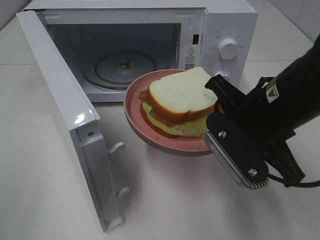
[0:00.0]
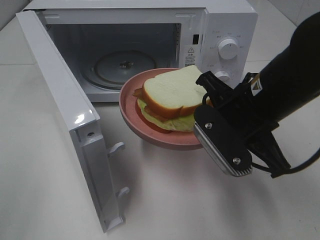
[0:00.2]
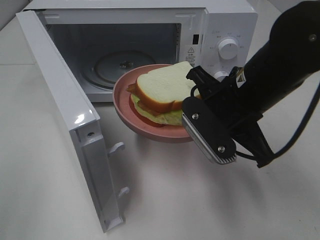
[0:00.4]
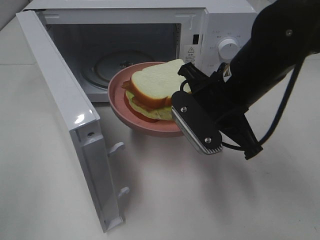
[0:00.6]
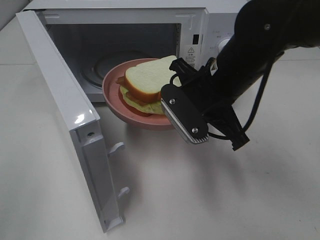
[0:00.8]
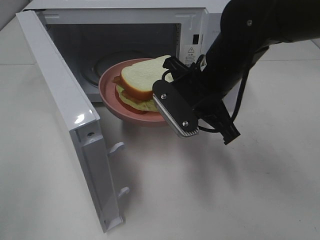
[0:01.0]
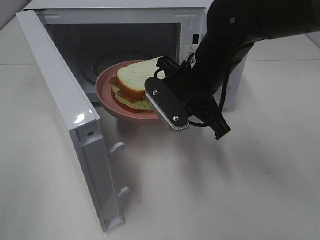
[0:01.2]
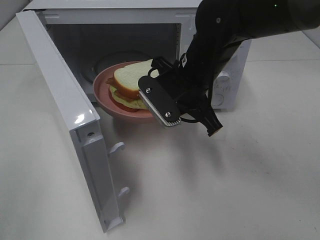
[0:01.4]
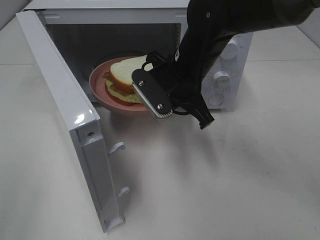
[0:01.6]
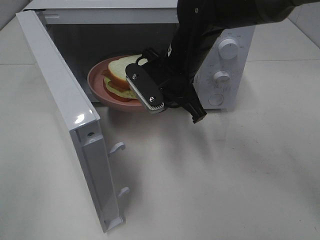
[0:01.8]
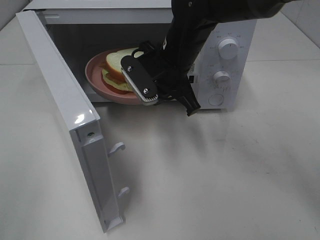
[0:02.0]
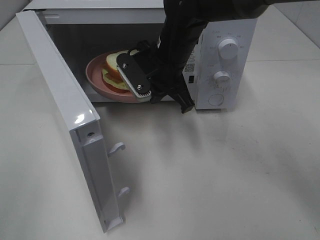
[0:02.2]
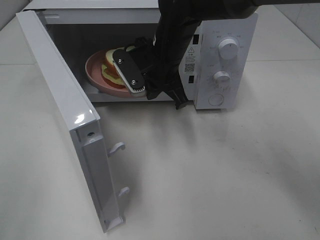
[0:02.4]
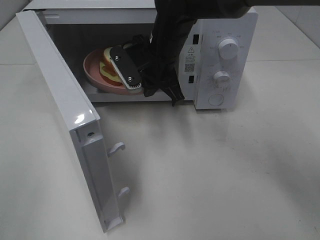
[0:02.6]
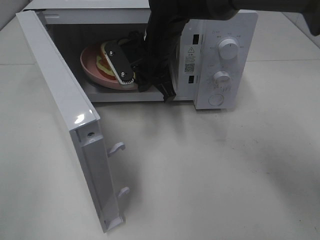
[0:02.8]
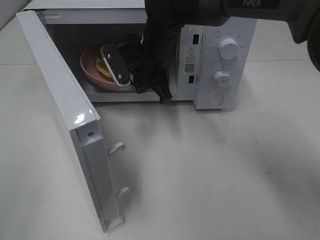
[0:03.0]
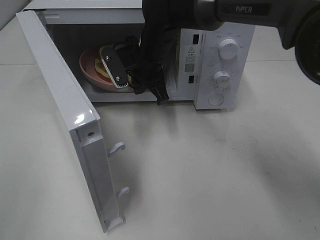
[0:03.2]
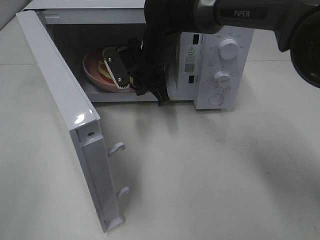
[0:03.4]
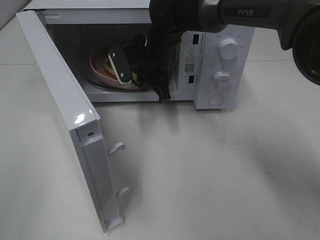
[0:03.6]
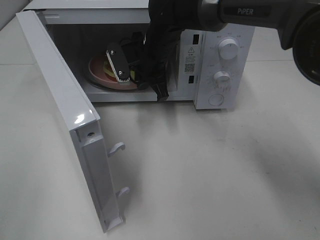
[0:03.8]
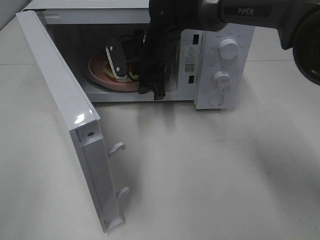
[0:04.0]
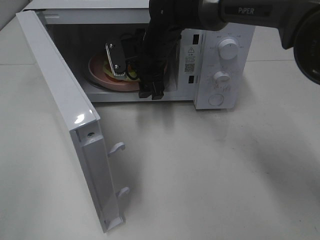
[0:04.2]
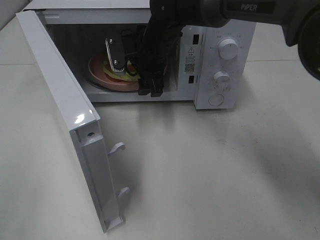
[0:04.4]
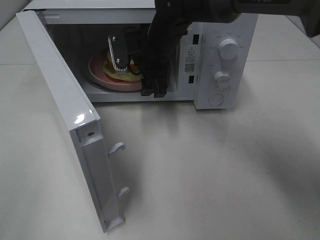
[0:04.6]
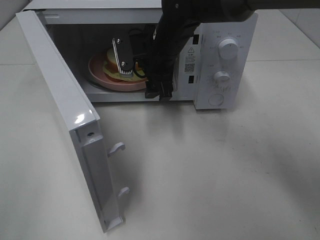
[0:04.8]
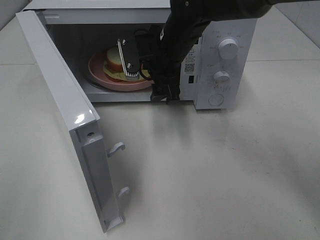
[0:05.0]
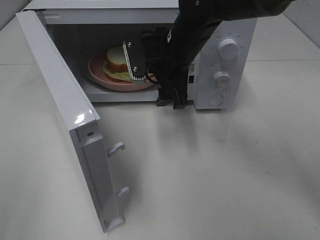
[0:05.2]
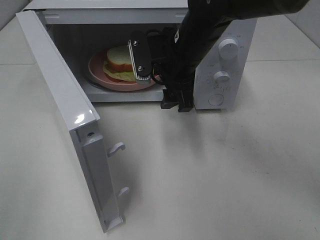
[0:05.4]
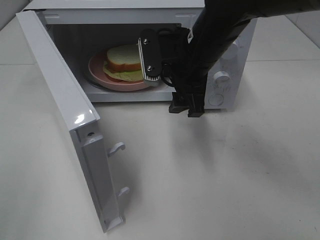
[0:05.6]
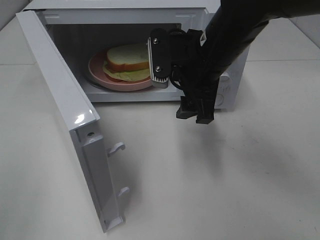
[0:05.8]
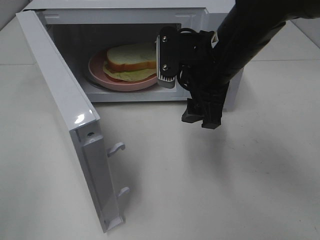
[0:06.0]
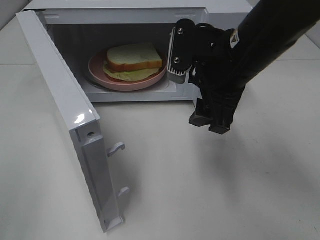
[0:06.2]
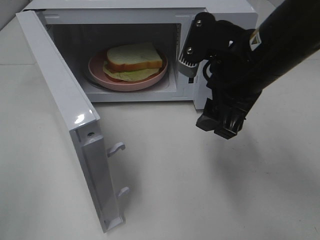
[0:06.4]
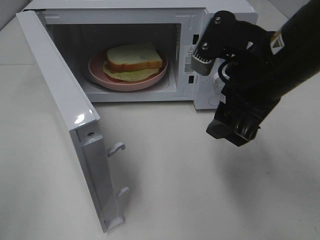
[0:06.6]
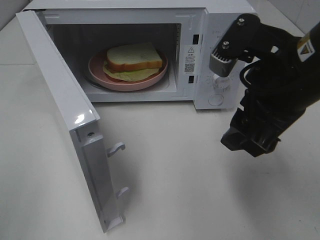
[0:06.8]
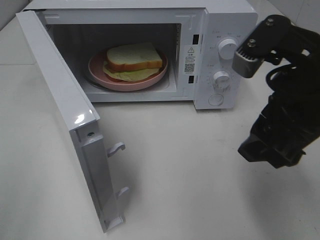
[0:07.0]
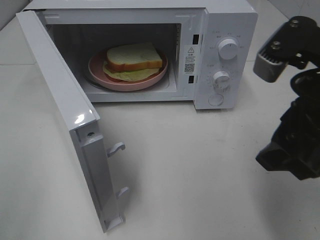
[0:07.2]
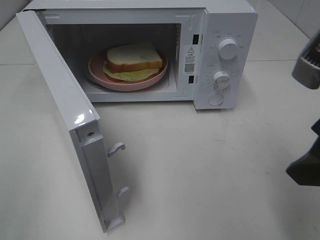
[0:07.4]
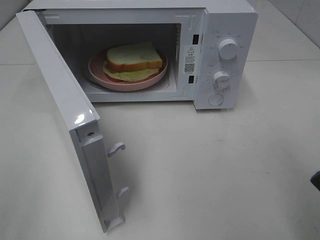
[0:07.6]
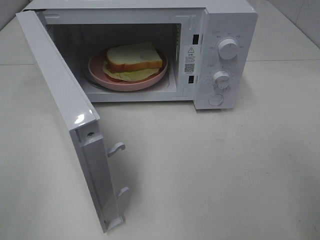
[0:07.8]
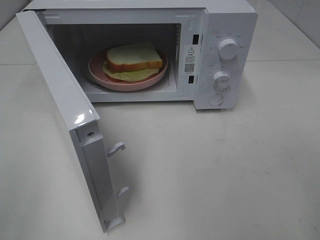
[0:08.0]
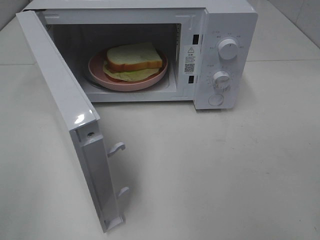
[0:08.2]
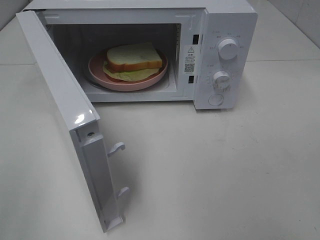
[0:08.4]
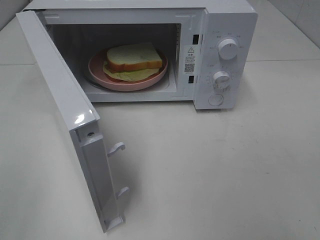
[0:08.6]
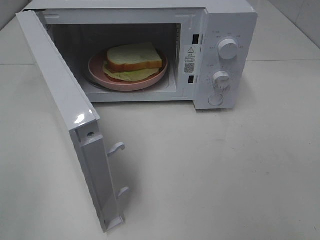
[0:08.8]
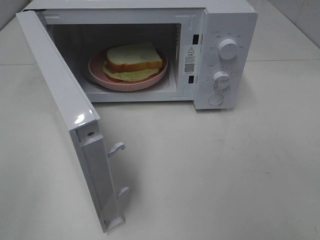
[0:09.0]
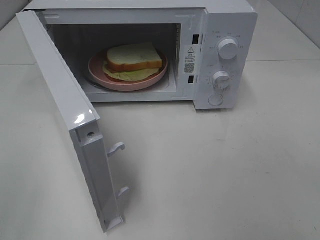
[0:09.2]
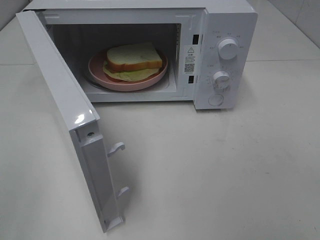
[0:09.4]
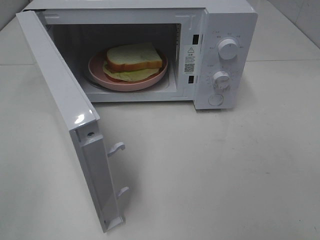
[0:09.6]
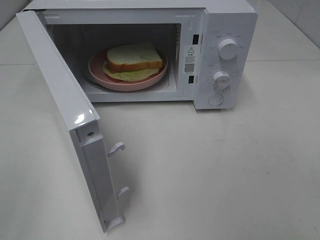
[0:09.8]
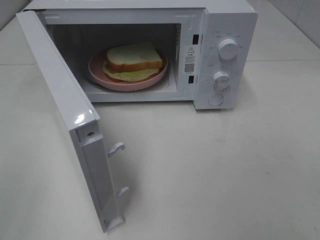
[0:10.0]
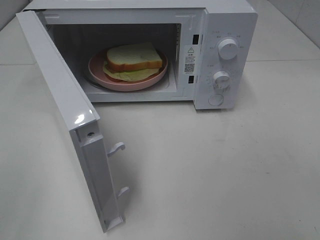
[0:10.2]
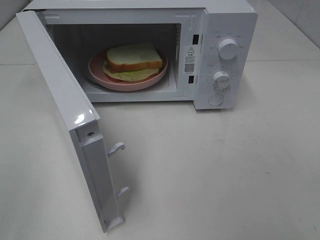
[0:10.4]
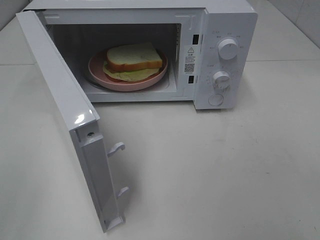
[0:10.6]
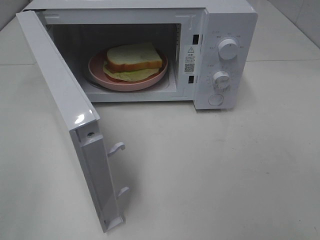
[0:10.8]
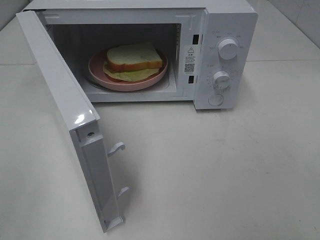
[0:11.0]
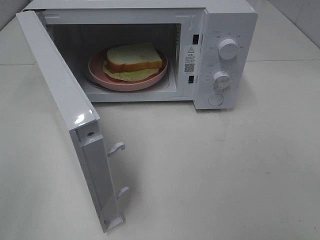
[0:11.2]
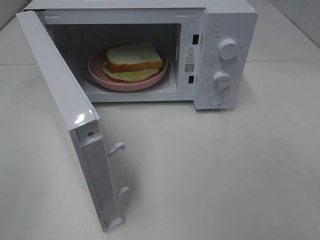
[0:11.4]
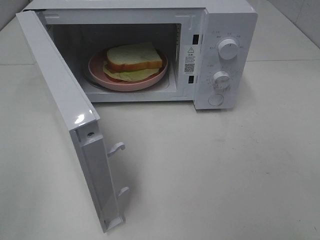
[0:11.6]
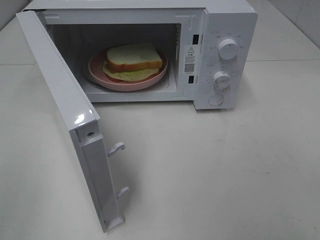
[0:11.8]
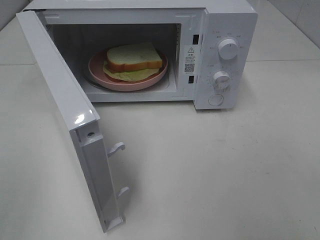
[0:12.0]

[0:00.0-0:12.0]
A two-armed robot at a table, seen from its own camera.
Task of the whole recording: Heat Sandwich.
Step, 0:00.0 to 0:04.4: Right hand: place the plate in the microwave.
0:00.0 to 0:01.6: The right gripper heads forward and to the left, covering about 15 cm.
0:01.6 to 0:03.0: The right gripper shifts some 10 cm forward and to the left.
0:03.0 to 0:04.4: The right gripper opens up.
0:04.4 to 0:06.0: The right gripper goes roughly 15 cm backward and to the right.
0:06.0 to 0:07.6: The right gripper heads backward and to the right, covering roughly 20 cm.
0:07.6 to 0:09.0: The right gripper goes approximately 10 cm backward and to the right.

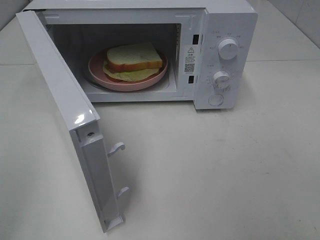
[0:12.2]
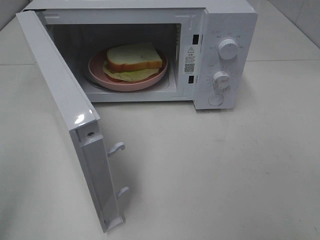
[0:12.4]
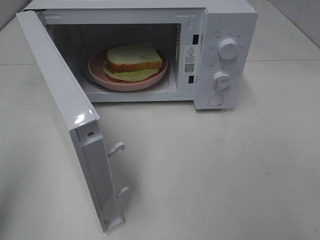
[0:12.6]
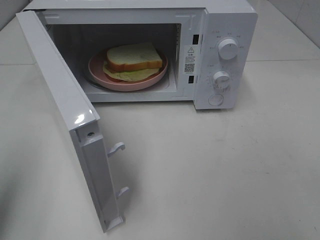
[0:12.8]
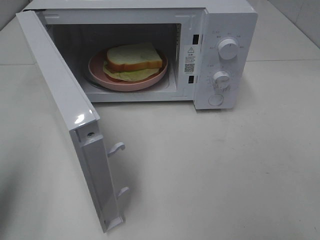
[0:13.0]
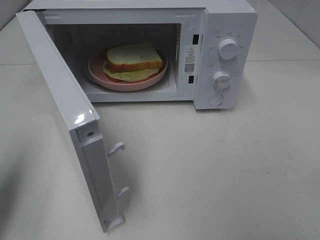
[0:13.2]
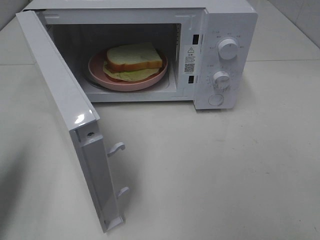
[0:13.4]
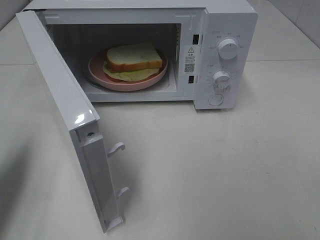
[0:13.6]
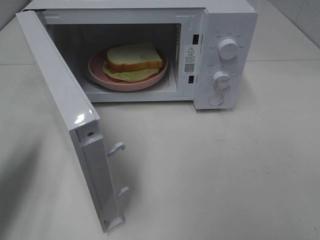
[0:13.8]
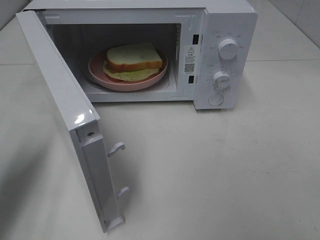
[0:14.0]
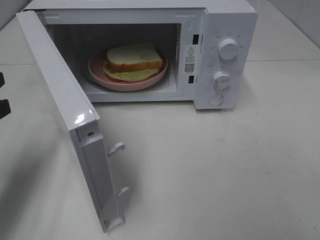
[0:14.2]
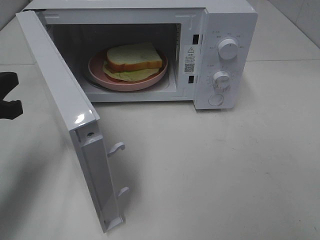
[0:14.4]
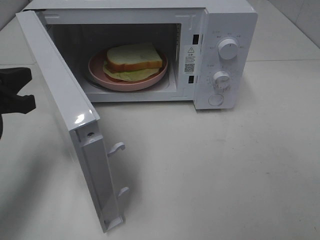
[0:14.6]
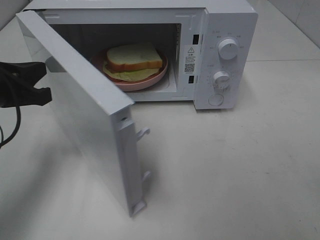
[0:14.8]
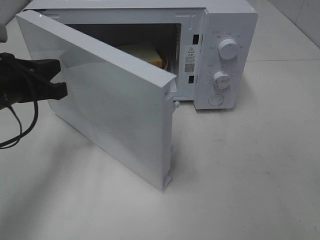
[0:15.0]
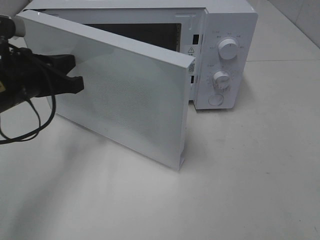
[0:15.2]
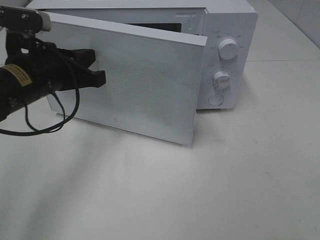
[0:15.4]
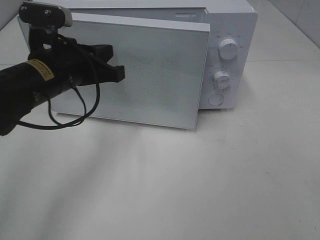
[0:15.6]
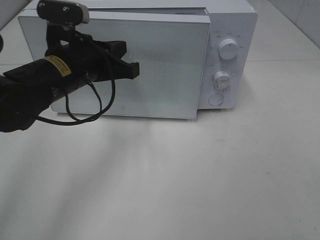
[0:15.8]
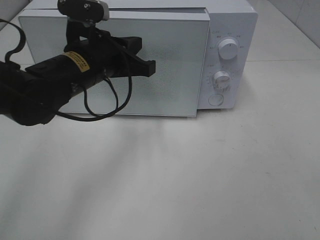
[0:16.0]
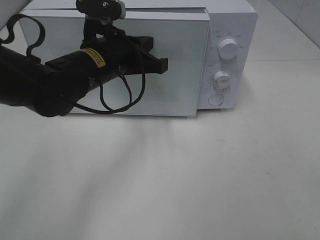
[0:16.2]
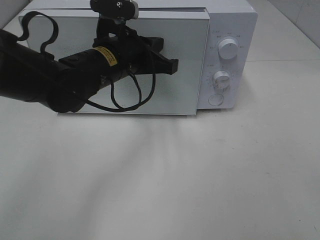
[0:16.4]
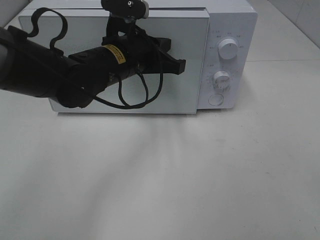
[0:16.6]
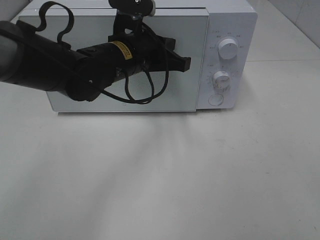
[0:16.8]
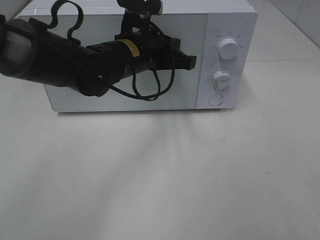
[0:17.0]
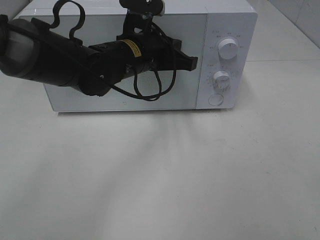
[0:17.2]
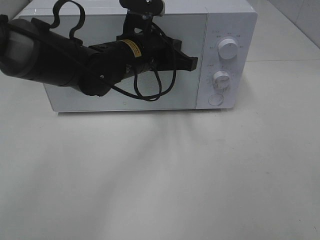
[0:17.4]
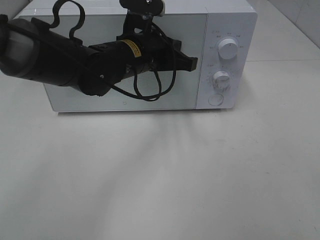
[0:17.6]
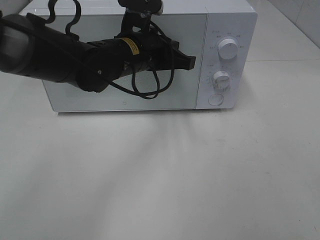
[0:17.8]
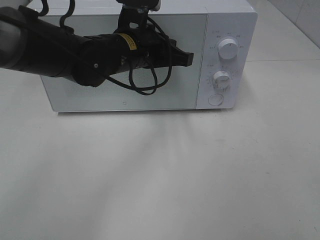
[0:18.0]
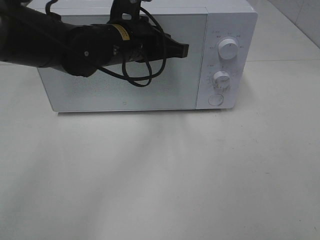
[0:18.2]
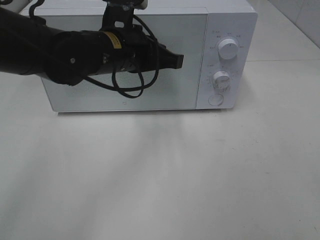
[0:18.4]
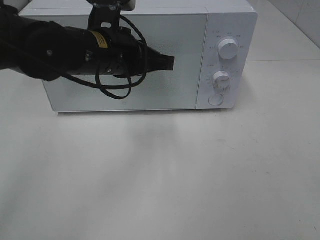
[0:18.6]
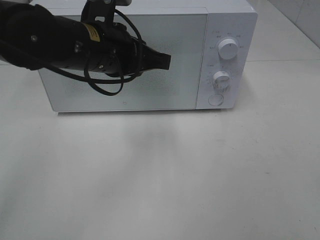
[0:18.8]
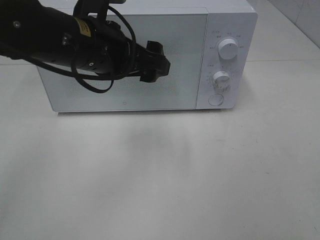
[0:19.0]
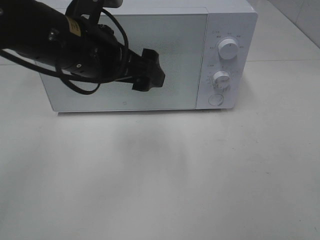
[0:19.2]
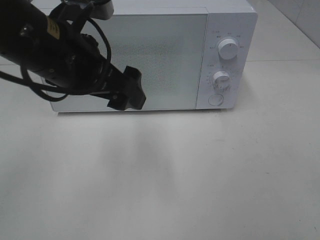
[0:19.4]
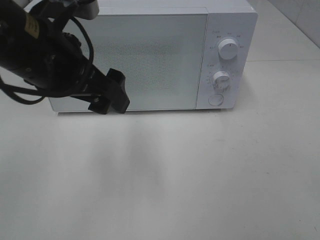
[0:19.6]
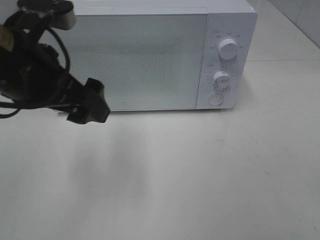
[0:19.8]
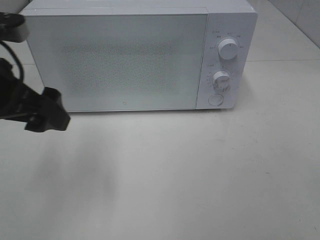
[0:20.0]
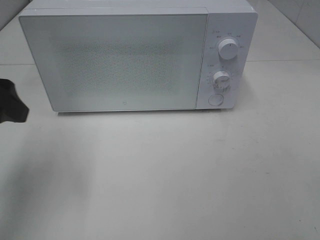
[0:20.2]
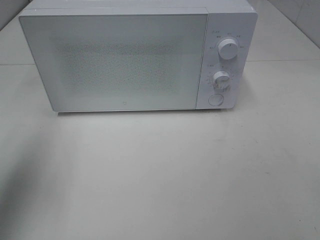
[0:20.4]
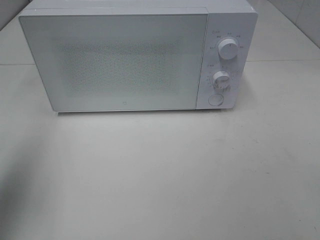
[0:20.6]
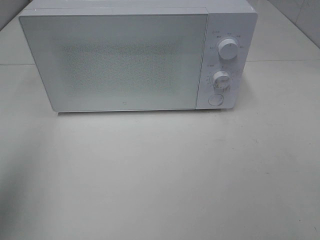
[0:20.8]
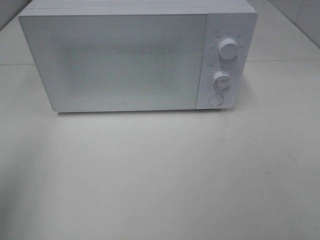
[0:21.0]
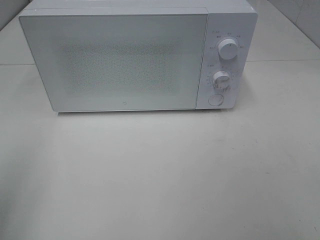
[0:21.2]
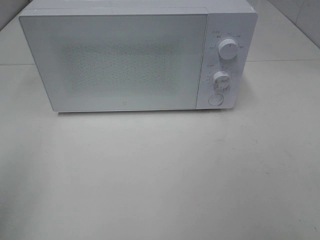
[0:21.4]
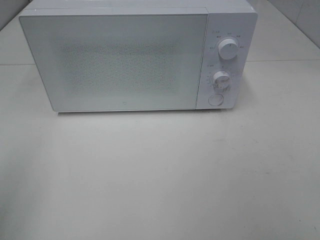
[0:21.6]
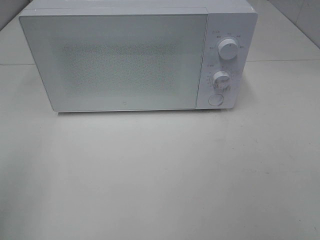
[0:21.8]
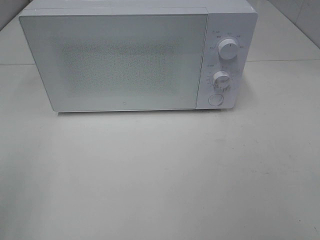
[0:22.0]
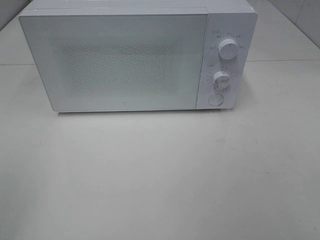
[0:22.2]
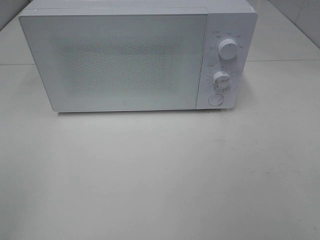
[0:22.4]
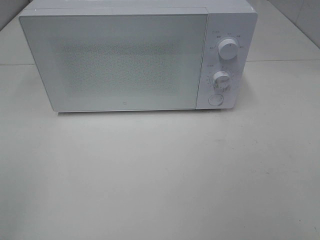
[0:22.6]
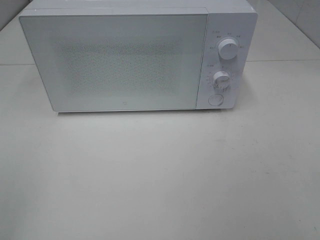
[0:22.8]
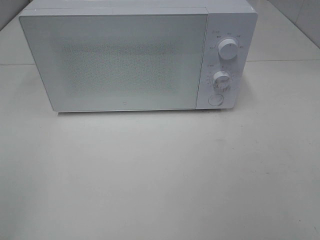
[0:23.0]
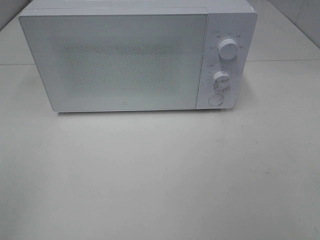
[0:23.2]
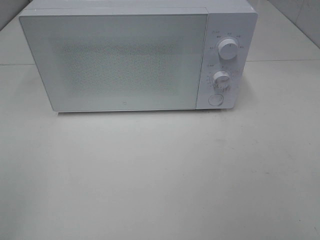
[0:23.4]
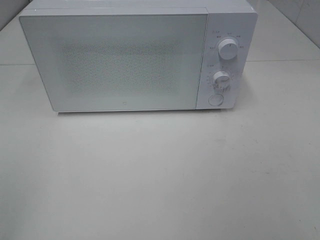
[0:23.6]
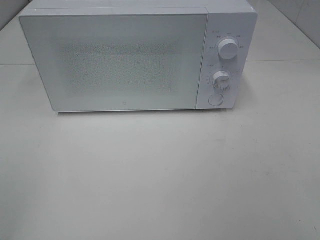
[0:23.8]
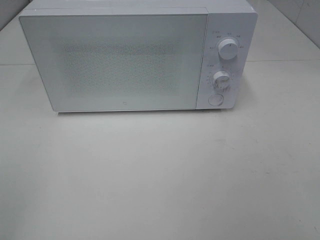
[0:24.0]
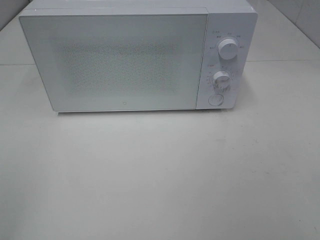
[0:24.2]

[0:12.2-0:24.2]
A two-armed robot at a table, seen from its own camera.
Task of the whole recording: Heat Sandwich.
Step, 0:12.2 to 0:18.2: Left hand: close the microwave door.
0:12.2 to 0:13.8: The left gripper travels forward and downward by some 20 cm, and closes up.
0:13.8 to 0:15.2: The left gripper goes approximately 15 cm to the right and forward.
0:15.2 to 0:16.6: The left gripper is displaced to the right and forward by approximately 15 cm.
0:16.6 to 0:18.2: The grippers make only small movements.
0:18.2 to 0:19.8: The left gripper is displaced backward and to the left by about 15 cm, and opens up.
0:19.8 to 0:21.2: The left gripper shifts about 20 cm to the left and backward.
0:22.6 to 0:24.2: Neither gripper changes place.
